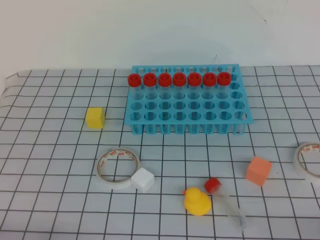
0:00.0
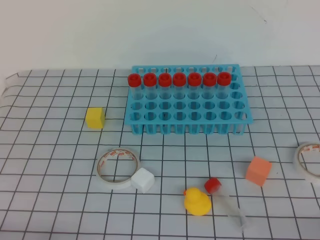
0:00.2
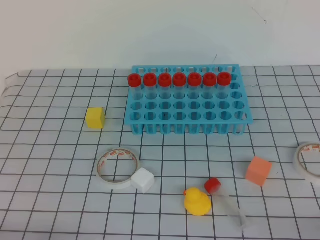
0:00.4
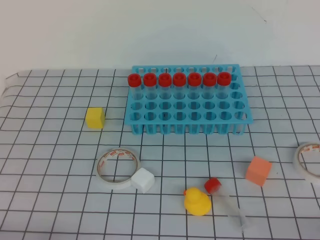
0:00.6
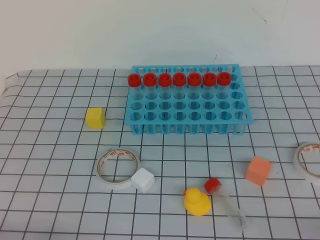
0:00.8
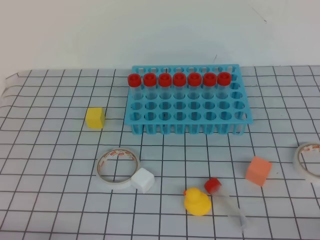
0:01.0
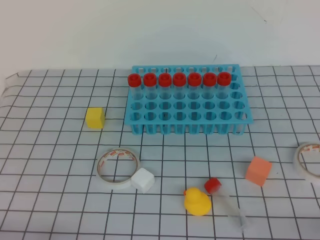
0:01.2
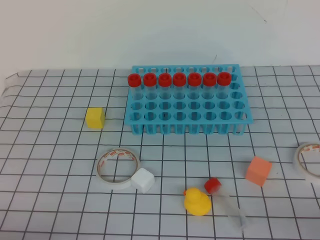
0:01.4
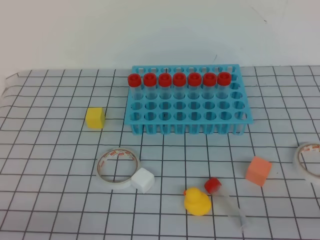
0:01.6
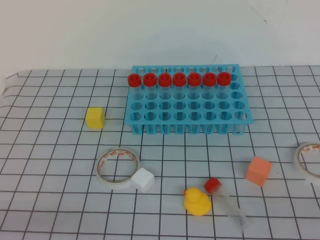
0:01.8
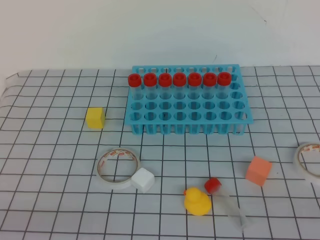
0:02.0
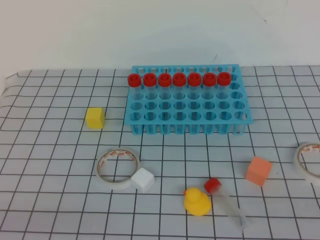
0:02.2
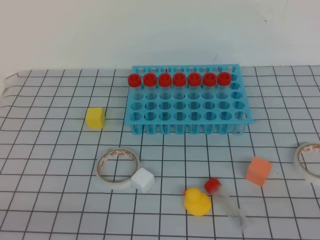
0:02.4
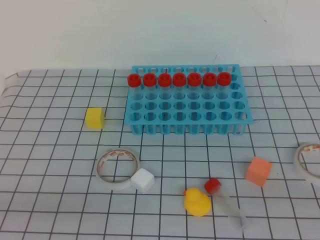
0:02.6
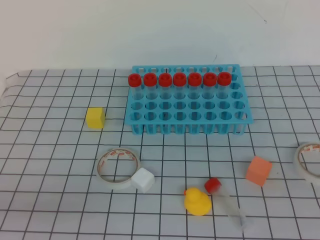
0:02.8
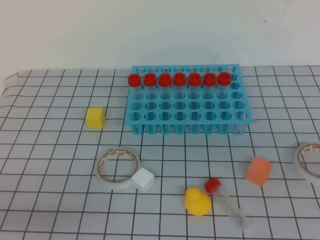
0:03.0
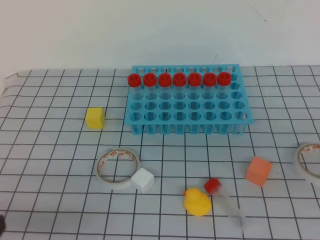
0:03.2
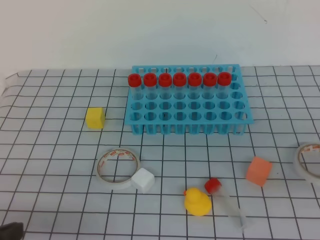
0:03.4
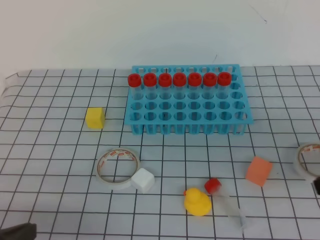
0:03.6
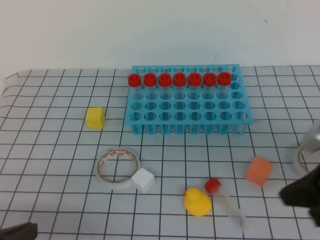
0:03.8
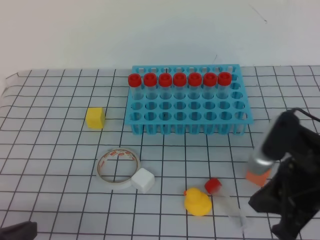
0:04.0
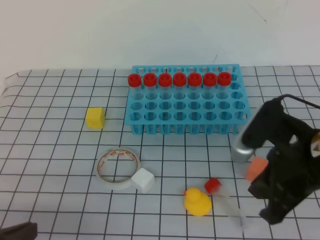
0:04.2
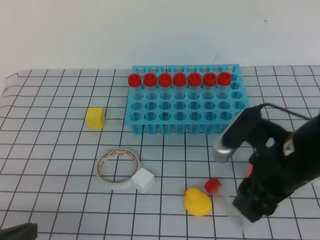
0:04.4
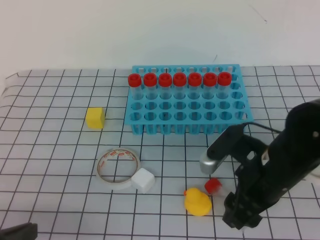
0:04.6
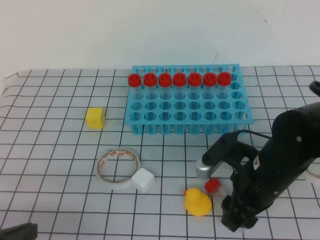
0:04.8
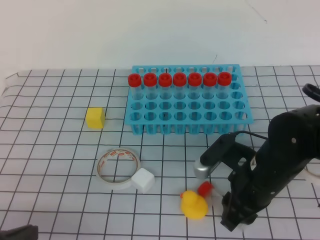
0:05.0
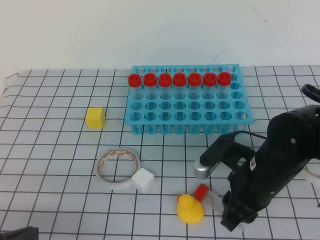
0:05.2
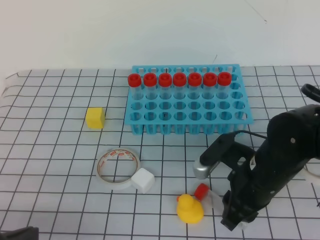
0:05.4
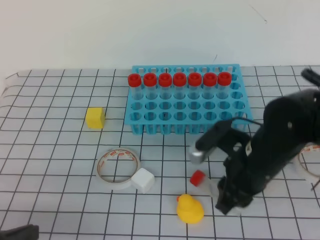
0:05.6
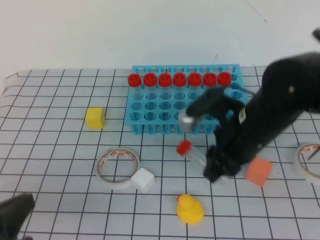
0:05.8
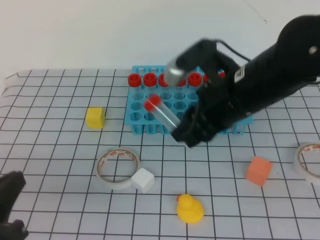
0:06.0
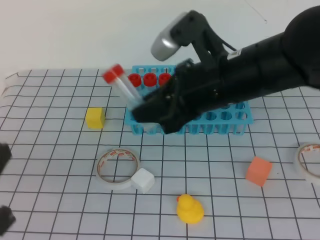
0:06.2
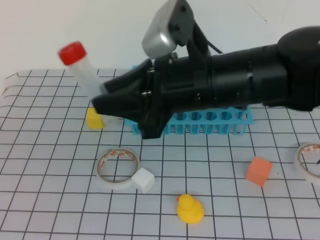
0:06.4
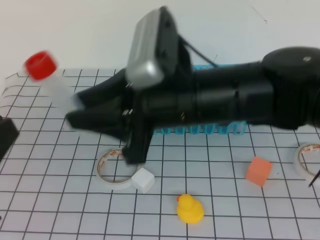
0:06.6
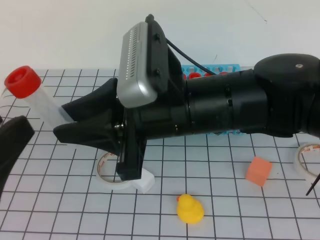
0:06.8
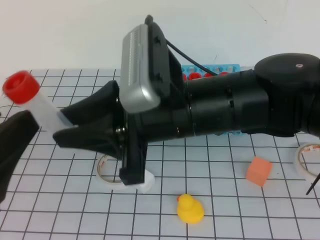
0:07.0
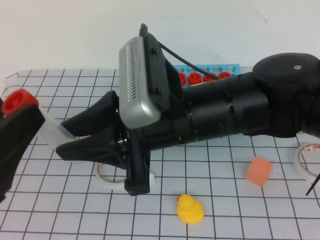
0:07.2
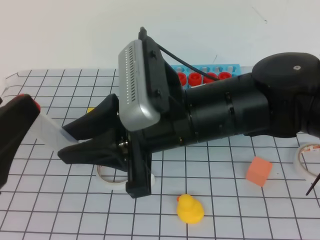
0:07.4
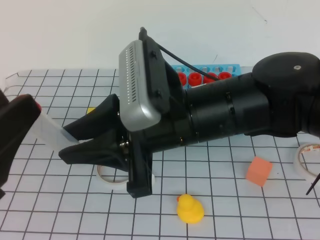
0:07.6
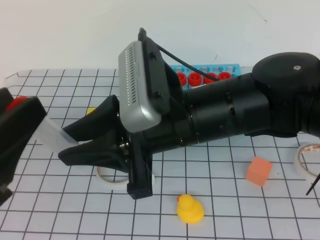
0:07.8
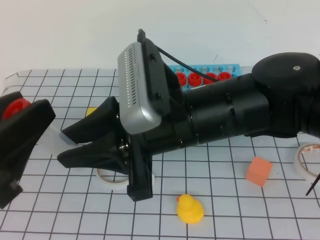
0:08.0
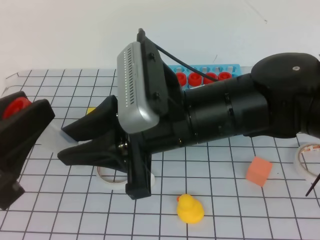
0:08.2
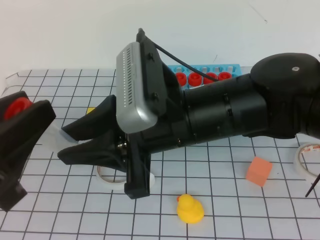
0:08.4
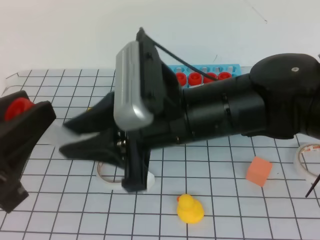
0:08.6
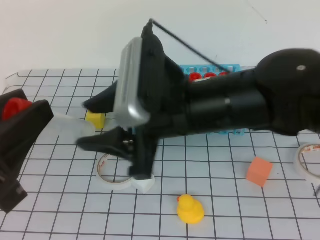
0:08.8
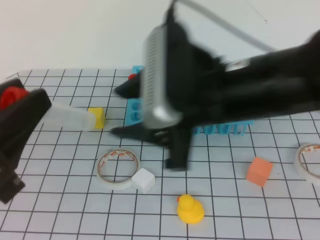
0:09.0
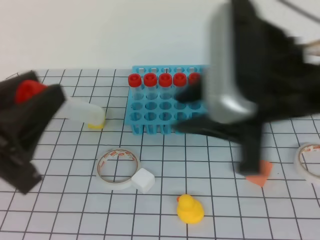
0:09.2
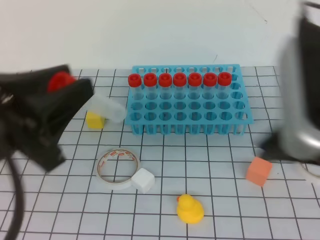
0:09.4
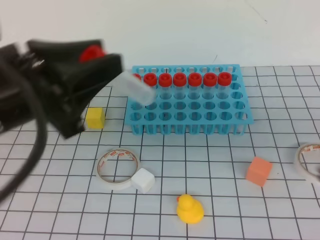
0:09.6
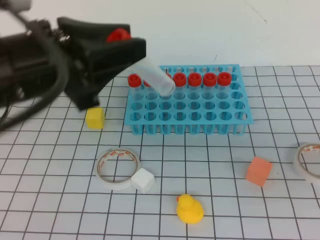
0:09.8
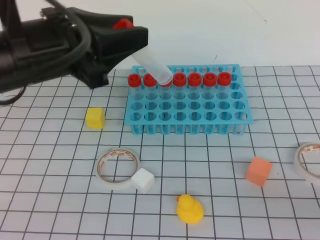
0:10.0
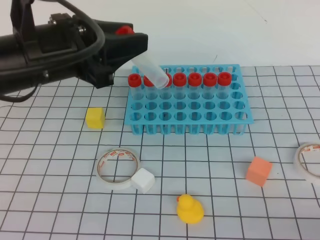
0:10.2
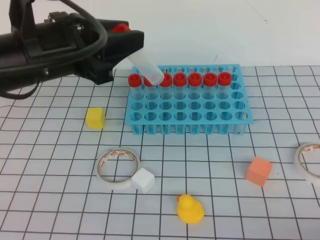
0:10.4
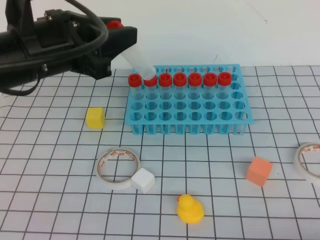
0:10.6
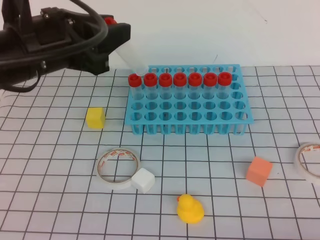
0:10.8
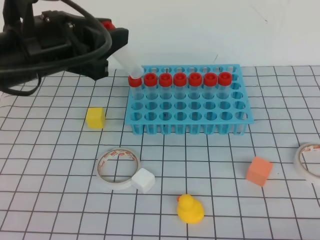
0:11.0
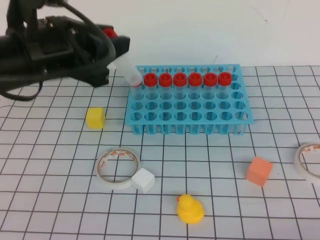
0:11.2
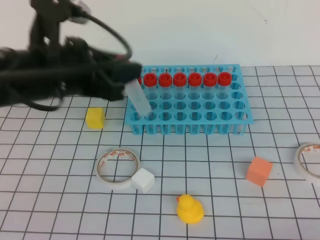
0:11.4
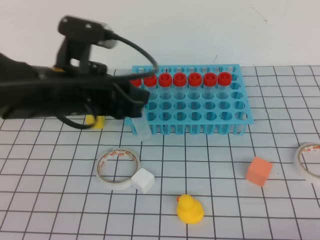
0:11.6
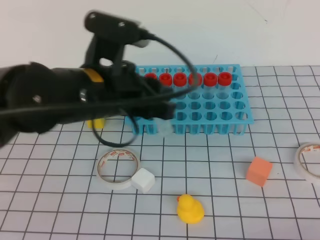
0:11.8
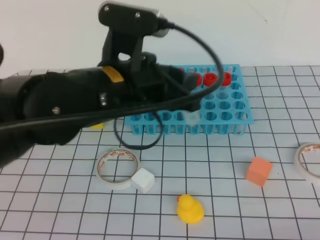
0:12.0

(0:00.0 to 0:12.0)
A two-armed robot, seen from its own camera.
0:03.0 - 0:04.4: The right gripper goes about 25 cm to the left, forward and downward, and opens up; the left gripper moves approximately 5 cm.
0:04.4 - 0:06.0: The right gripper moves to the left and forward, about 10 cm.
0:06.0 - 0:07.6: The left gripper moves upward, roughly 10 cm, and opens up, while the right gripper shifts approximately 10 cm to the left and backward.
0:07.6 - 0:09.0: The right gripper opens; the left gripper closes up.
0:09.0 - 0:10.4: The left gripper moves forward, approximately 15 cm, while the right gripper is displaced to the right, backward and downward by some 30 cm, and closes its fingers.
0:10.4 - 0:12.0: The left gripper heads to the right, covering approximately 10 cm.

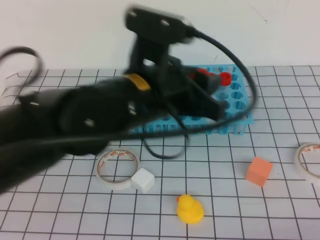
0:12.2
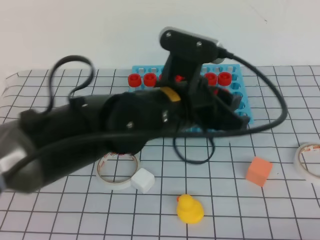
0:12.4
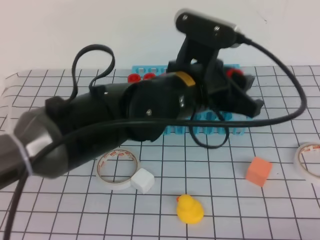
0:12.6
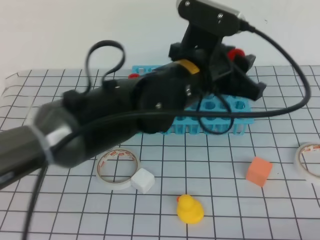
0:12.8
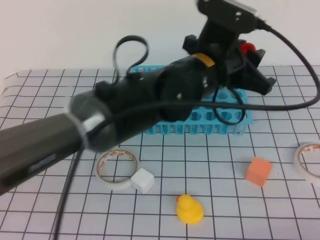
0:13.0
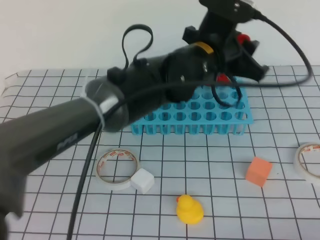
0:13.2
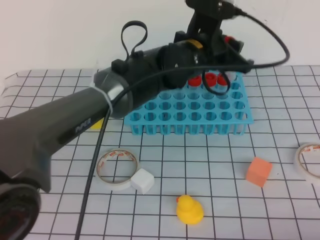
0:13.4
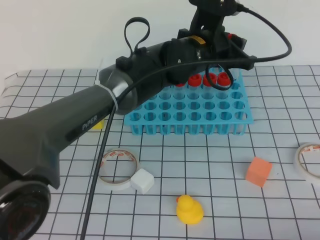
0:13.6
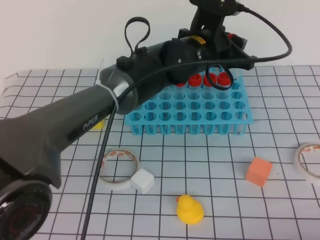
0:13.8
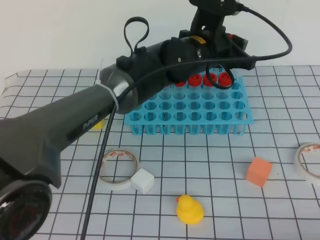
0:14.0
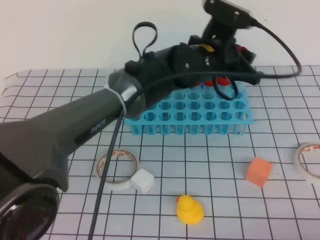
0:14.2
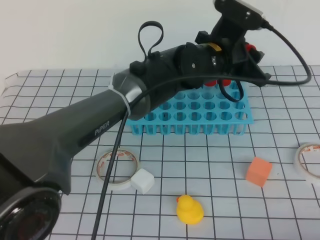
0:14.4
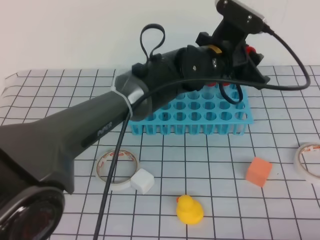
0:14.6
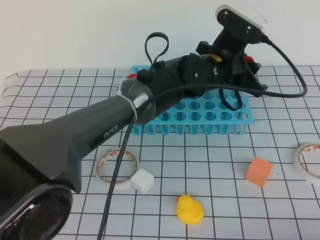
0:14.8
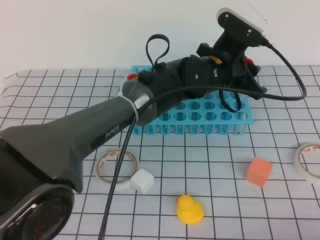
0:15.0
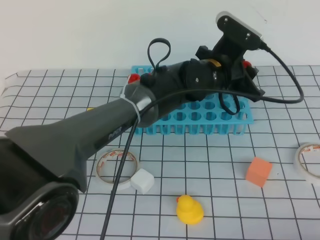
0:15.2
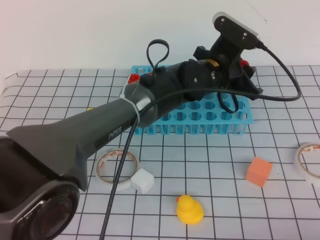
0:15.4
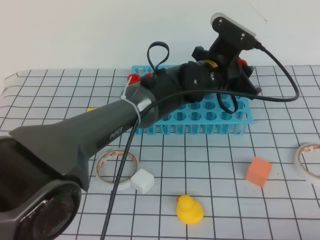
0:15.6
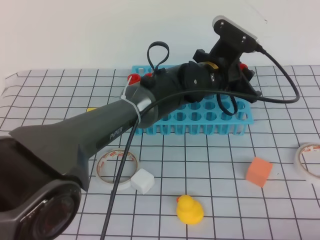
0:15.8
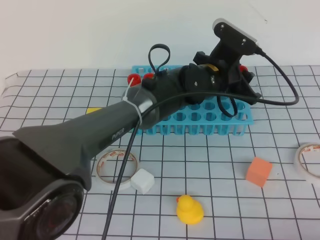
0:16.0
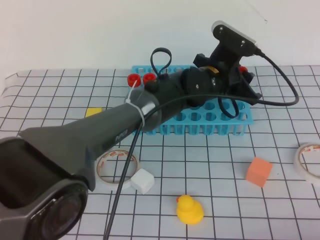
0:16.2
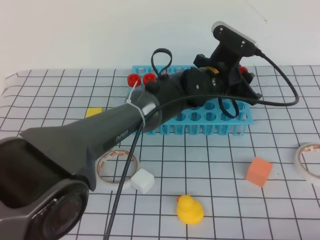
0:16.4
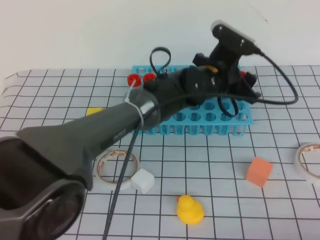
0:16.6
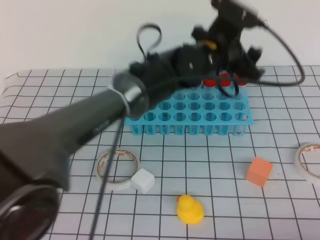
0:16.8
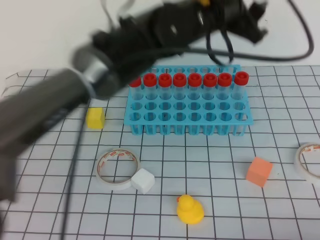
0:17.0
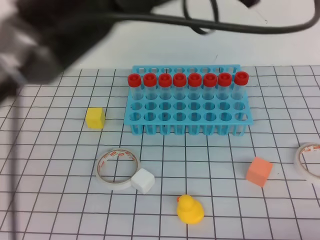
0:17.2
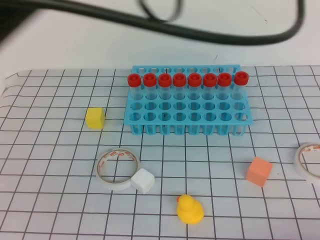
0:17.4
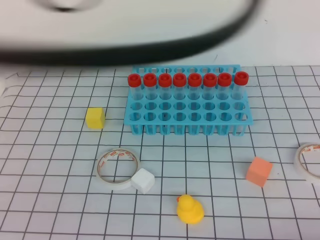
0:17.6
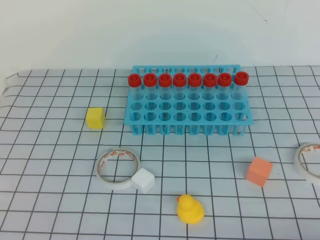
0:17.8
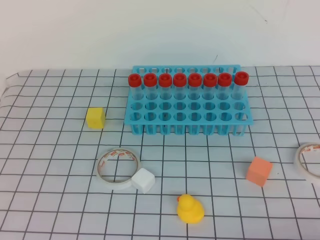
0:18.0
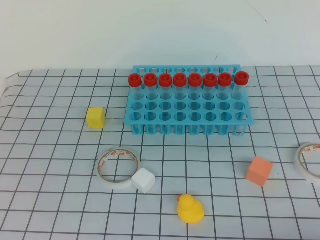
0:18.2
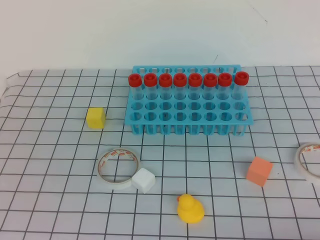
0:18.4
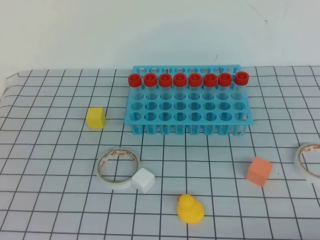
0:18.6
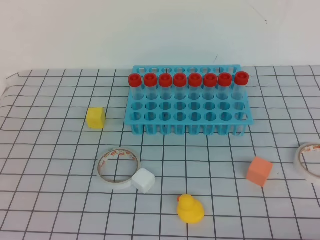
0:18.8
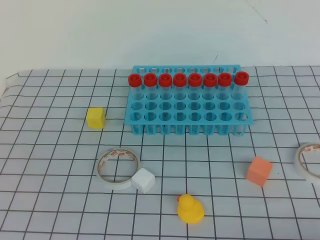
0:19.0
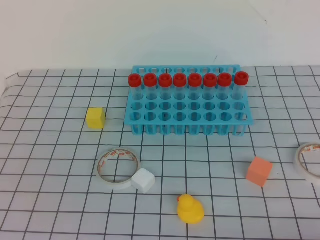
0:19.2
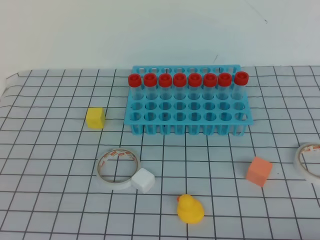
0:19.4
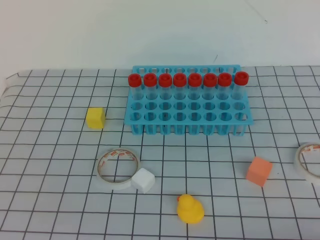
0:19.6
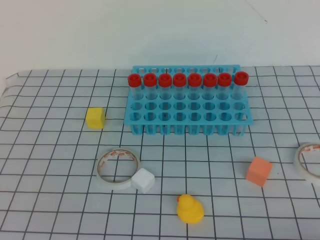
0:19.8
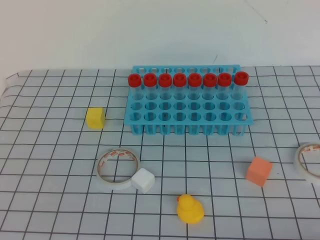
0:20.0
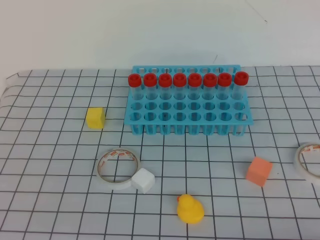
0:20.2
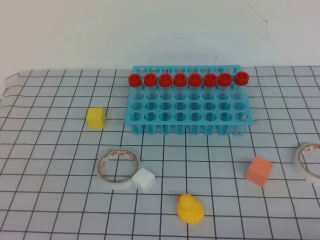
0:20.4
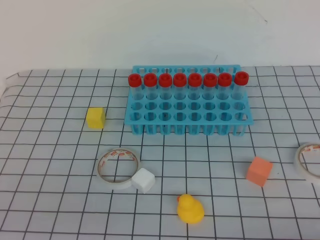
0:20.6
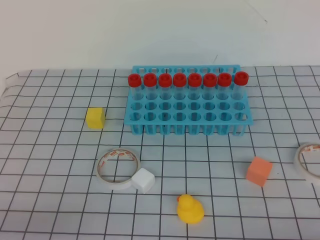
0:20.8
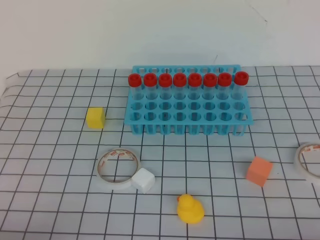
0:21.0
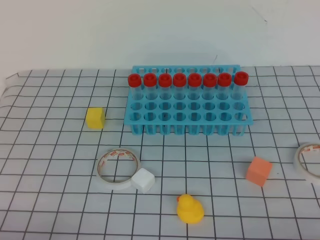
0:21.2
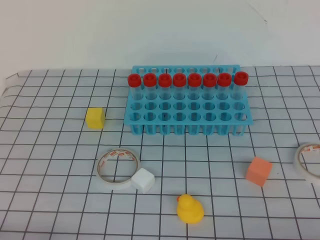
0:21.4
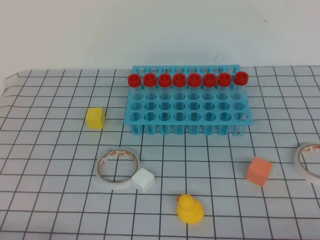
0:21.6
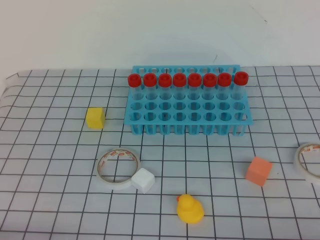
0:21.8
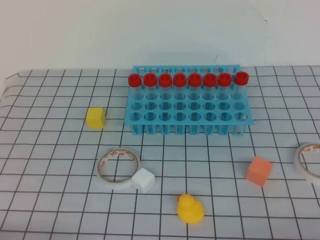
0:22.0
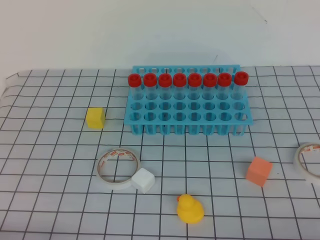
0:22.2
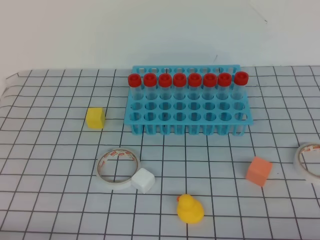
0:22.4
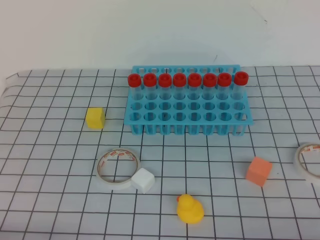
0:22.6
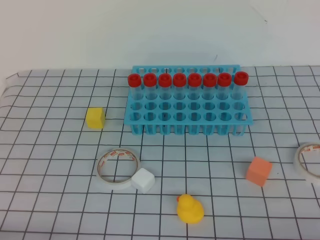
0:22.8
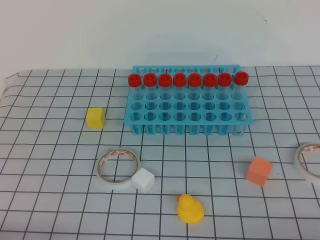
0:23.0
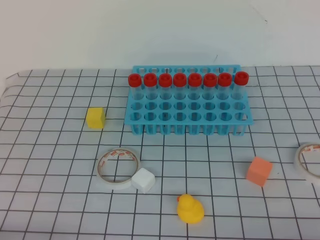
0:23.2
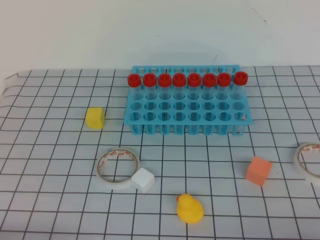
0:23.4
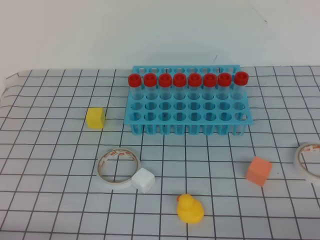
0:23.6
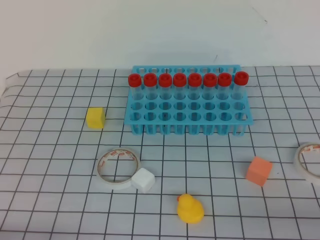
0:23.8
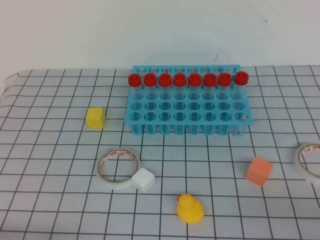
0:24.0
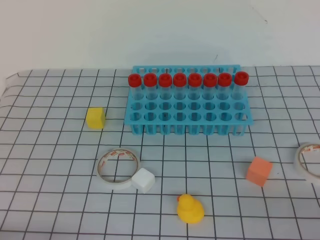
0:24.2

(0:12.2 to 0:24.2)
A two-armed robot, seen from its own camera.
0:12.2 - 0:13.8: The left gripper heads forward and to the right, covering some 15 cm.
0:15.2 - 0:16.6: The grippers make only small movements.
0:16.6 - 0:18.2: The left gripper goes some 60 cm backward, upward and to the left, and closes.
0:18.2 - 0:19.8: The left gripper travels downward, backward and to the left by about 20 cm.
